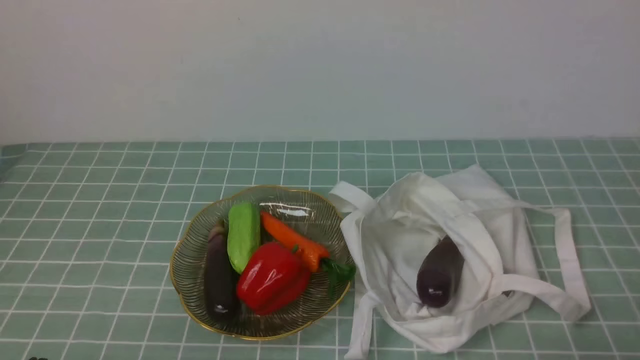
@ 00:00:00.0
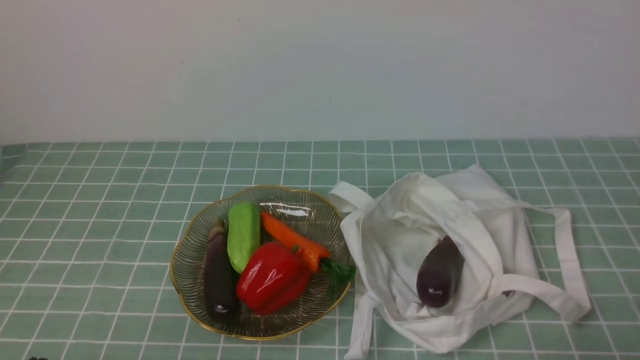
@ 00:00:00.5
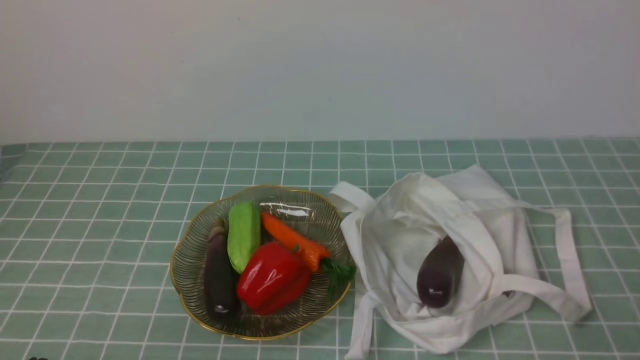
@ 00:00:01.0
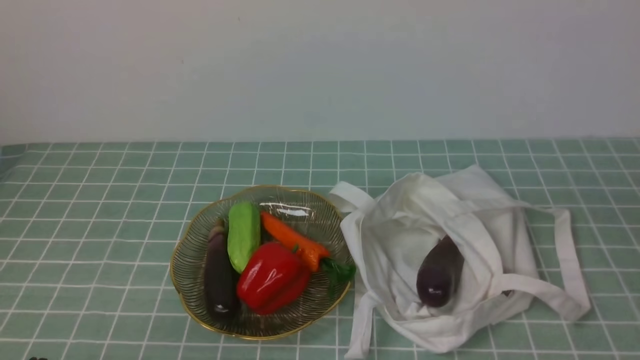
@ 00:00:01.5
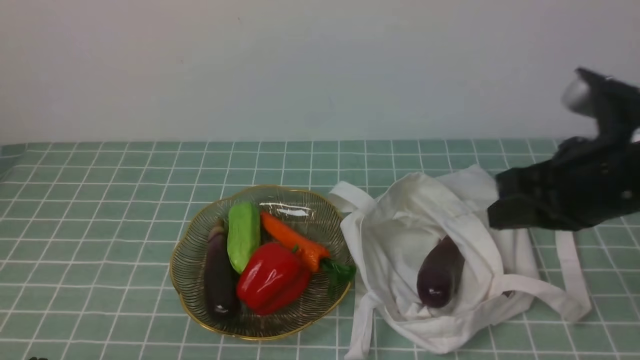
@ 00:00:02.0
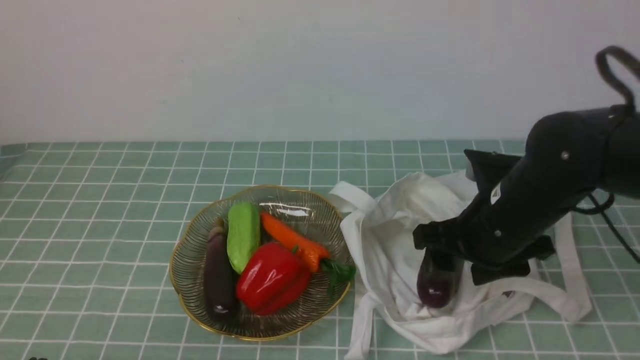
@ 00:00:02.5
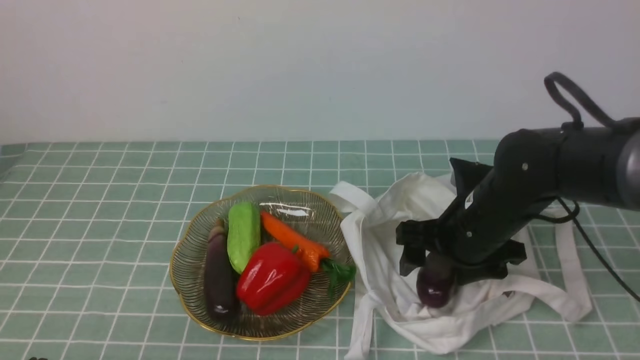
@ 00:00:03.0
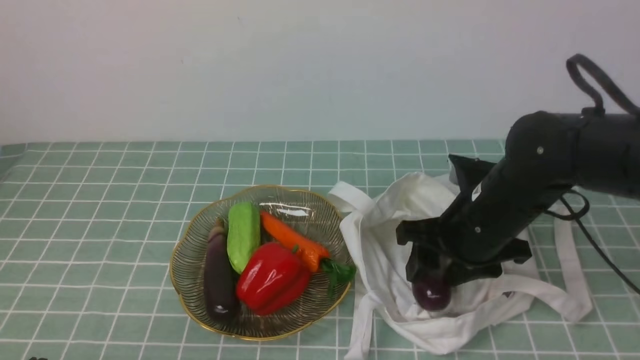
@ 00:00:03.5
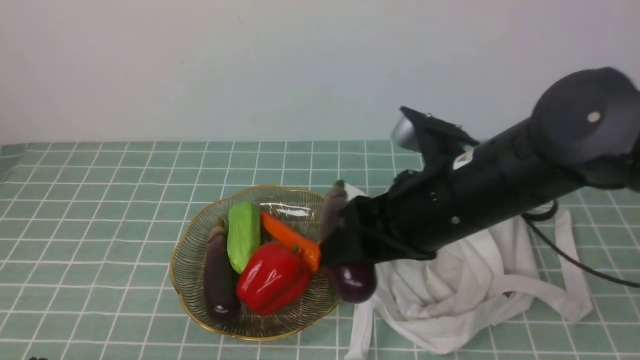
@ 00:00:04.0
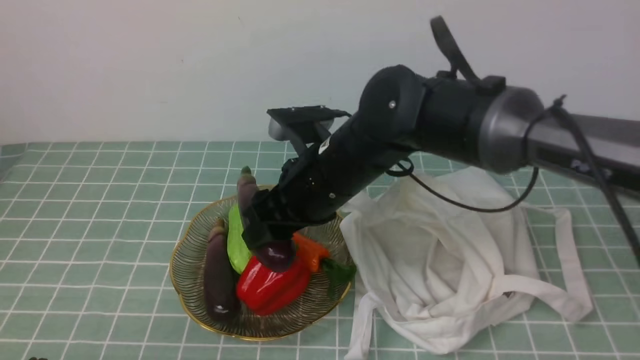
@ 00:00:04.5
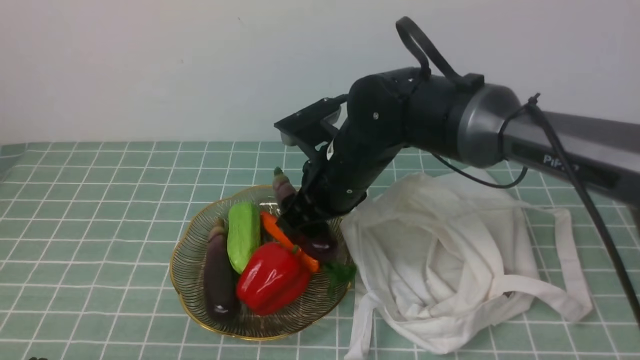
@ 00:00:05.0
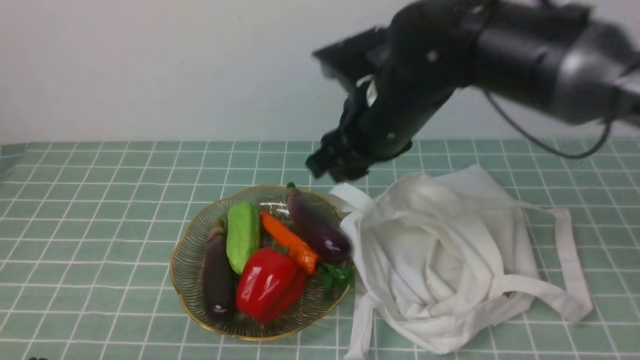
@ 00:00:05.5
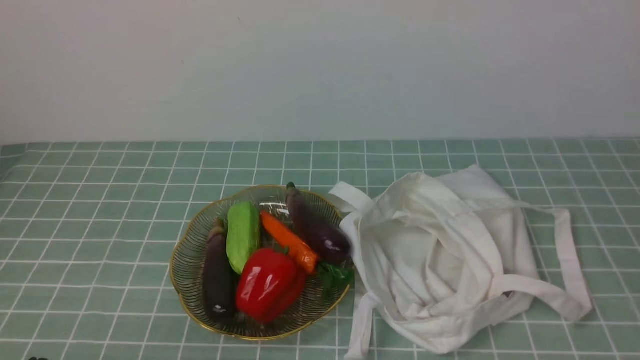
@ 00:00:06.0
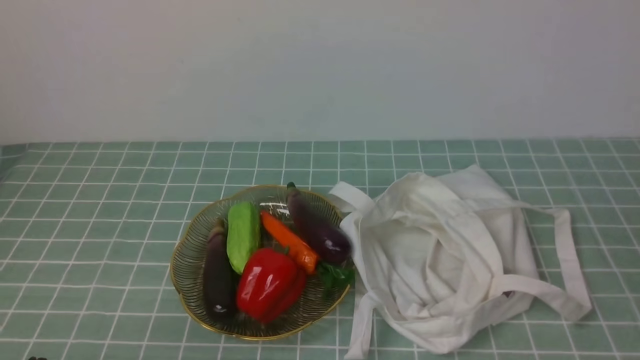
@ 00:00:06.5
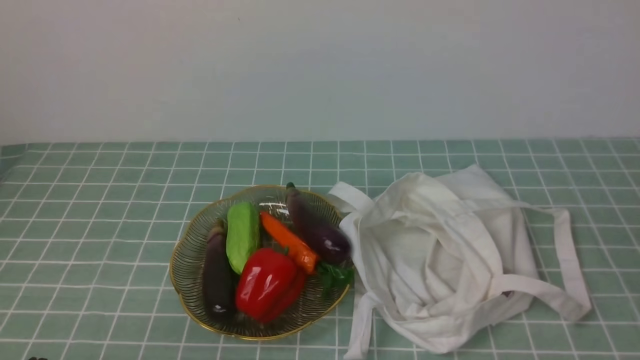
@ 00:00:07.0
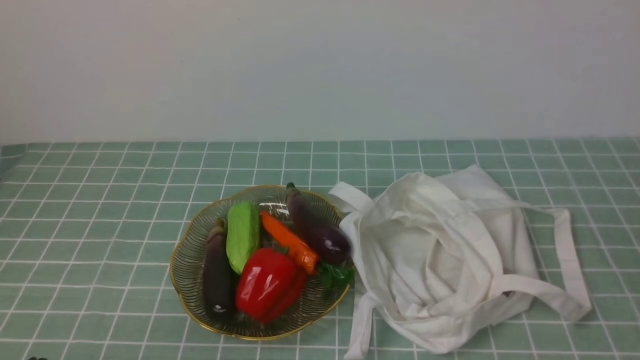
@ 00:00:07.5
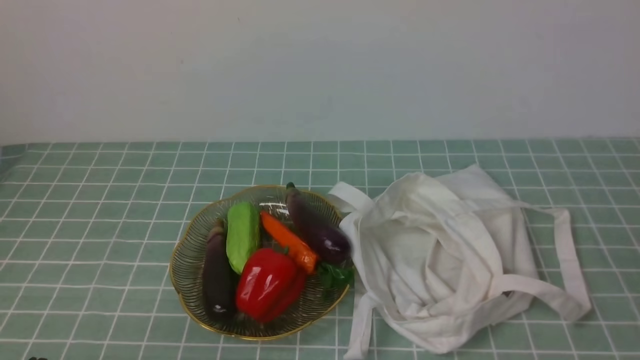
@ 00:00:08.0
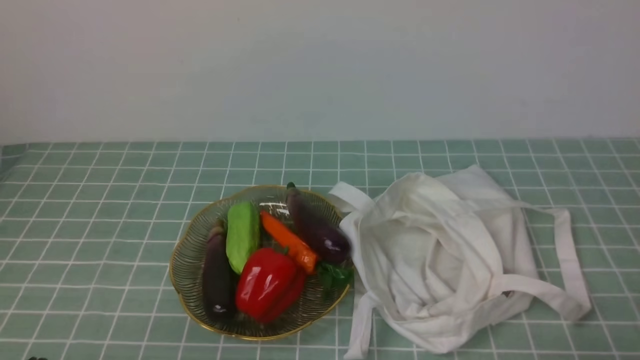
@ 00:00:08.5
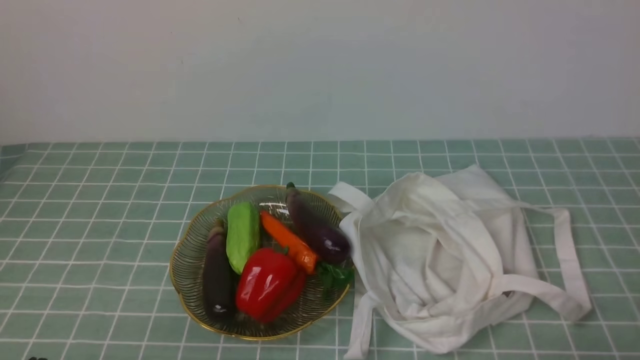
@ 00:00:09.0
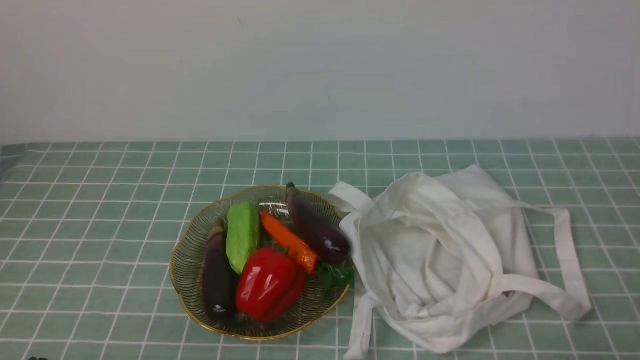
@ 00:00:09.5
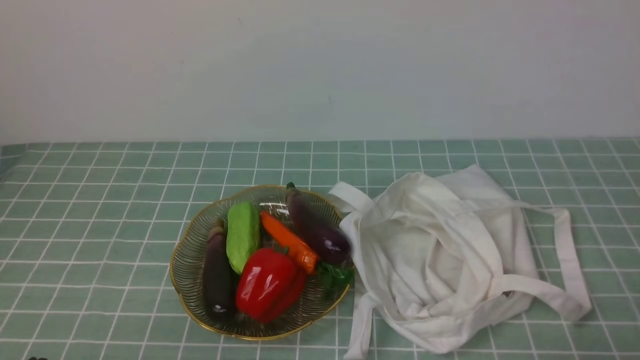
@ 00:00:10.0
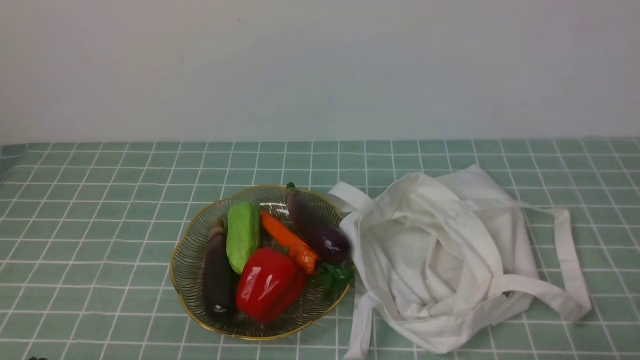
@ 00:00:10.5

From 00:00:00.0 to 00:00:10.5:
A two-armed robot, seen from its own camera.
Task of the whole recording: take vegetables from cloth bag on blue coffee tablecloth place on plate.
Step, from 00:00:00.0 to 00:00:03.0: Grasp the eggplant with right gripper.
Step, from 00:00:03.5 to 00:00:05.0: Place the eggplant on the plate with right gripper.
From 00:00:00.0 to 00:00:02.0: The right gripper shifts about 25 cm forward, upward and to the left.
From 00:00:02.0 to 00:00:04.0: The right gripper travels to the left by some 15 cm, and opens.
From 00:00:04.0 to 00:00:06.5: The right gripper is displaced backward and to the right by some 35 cm, and closes up.
From 00:00:08.5 to 00:00:10.5: Neither gripper changes place.

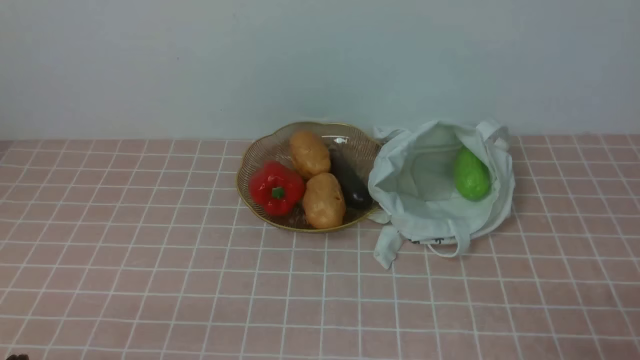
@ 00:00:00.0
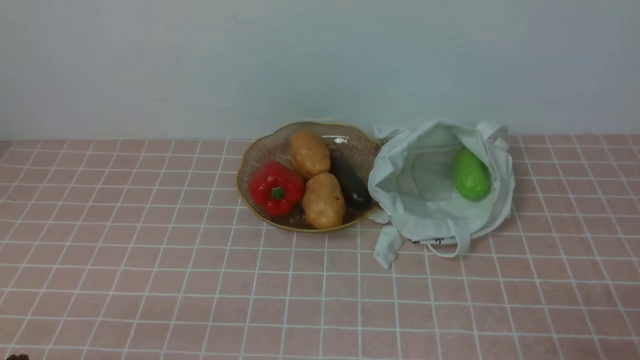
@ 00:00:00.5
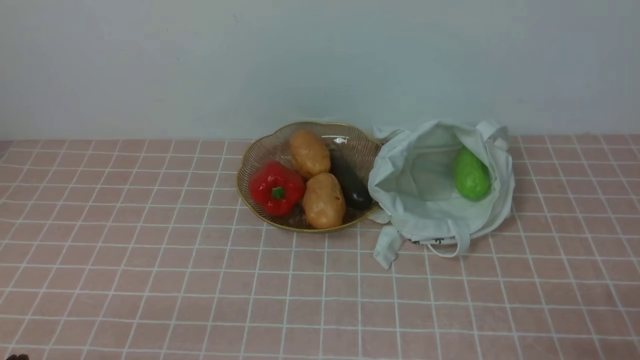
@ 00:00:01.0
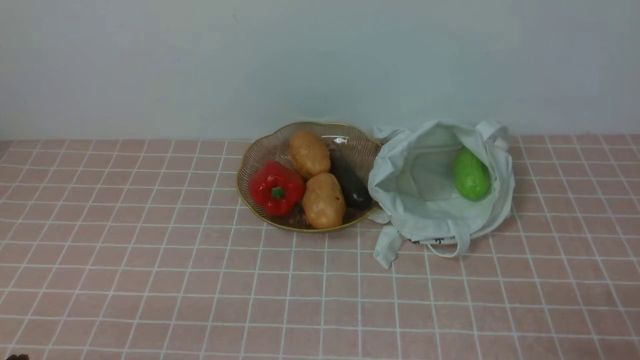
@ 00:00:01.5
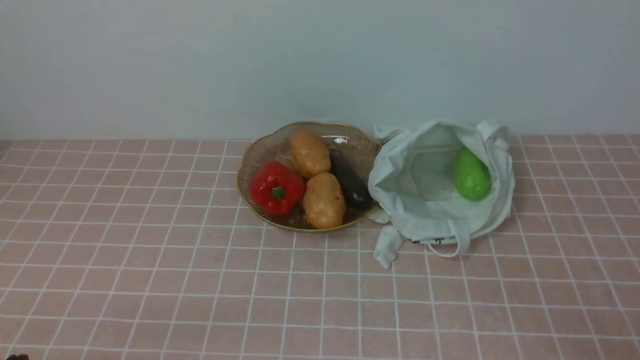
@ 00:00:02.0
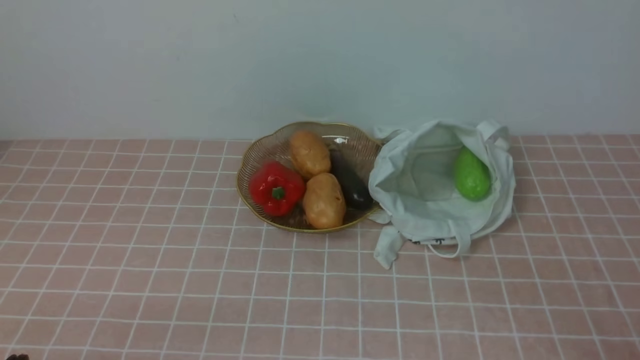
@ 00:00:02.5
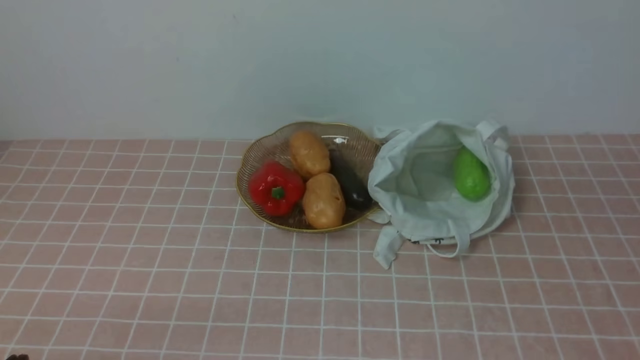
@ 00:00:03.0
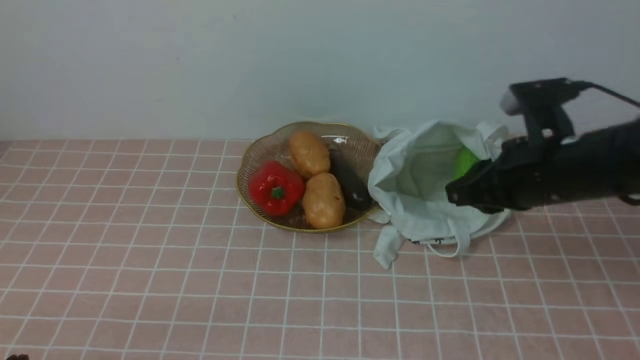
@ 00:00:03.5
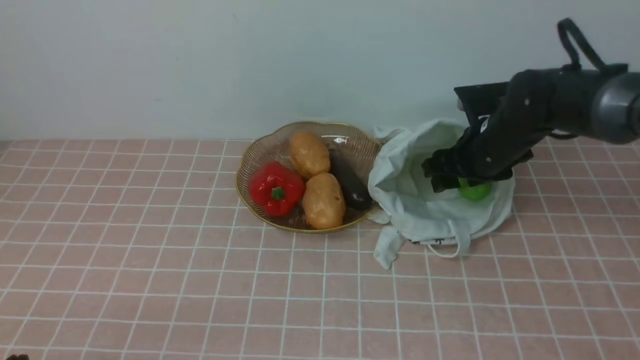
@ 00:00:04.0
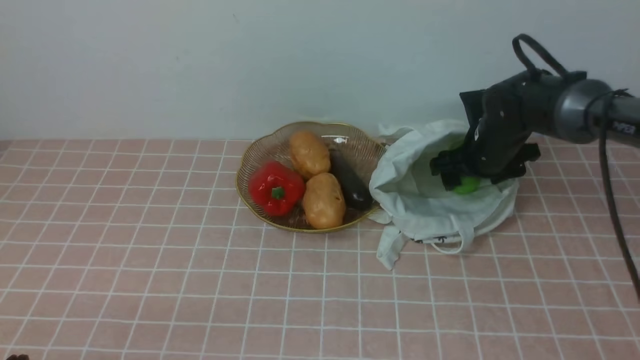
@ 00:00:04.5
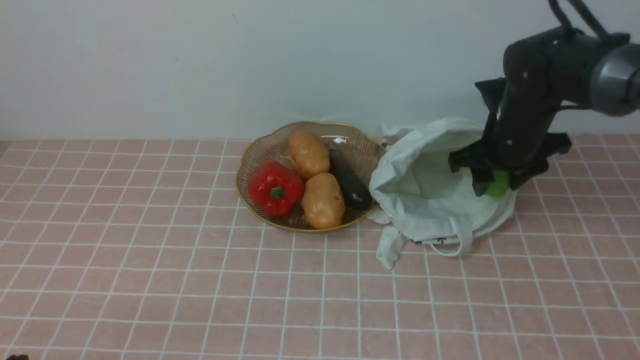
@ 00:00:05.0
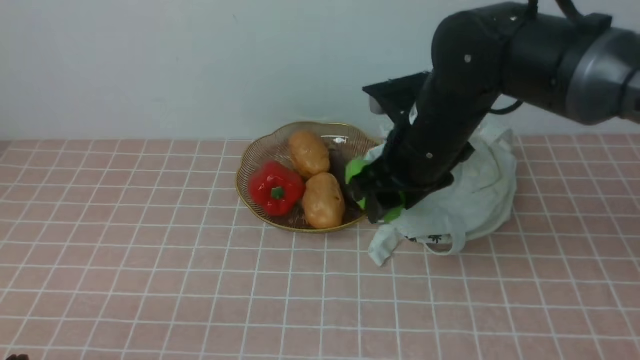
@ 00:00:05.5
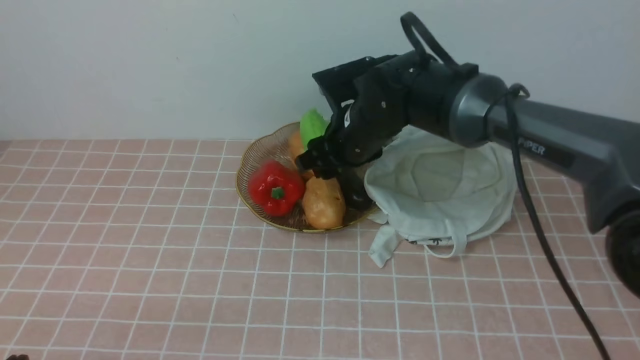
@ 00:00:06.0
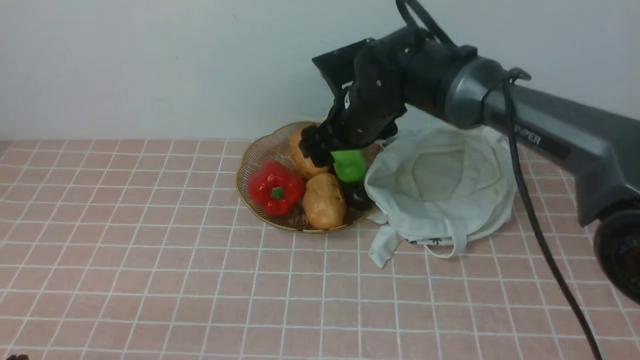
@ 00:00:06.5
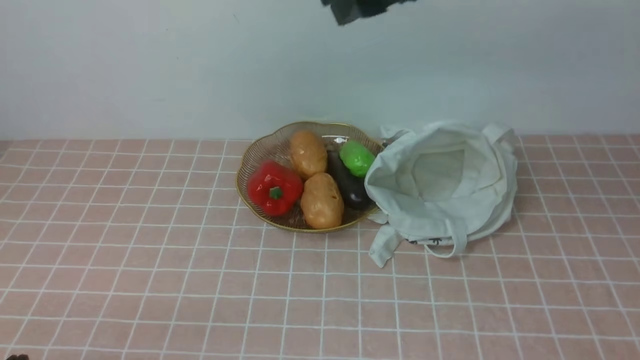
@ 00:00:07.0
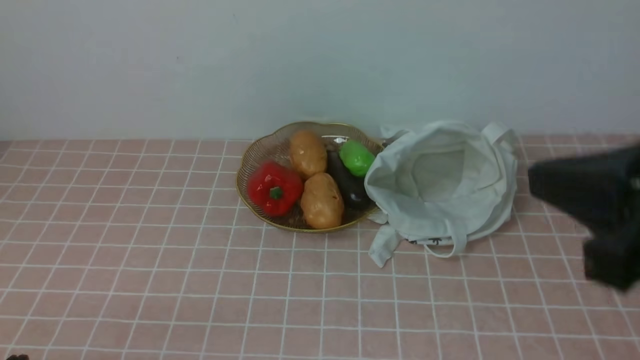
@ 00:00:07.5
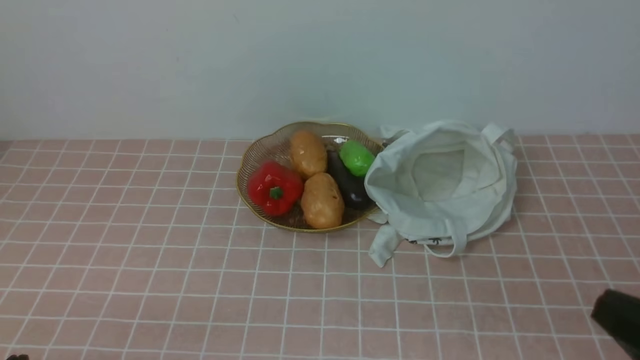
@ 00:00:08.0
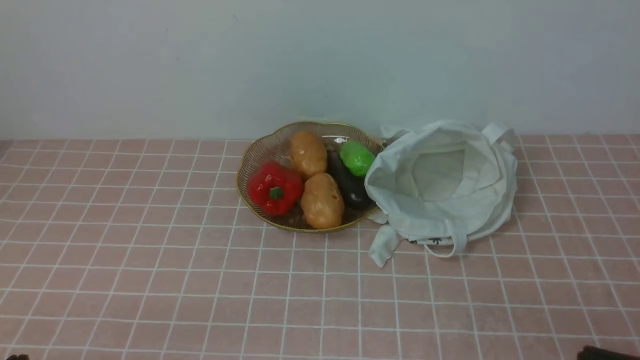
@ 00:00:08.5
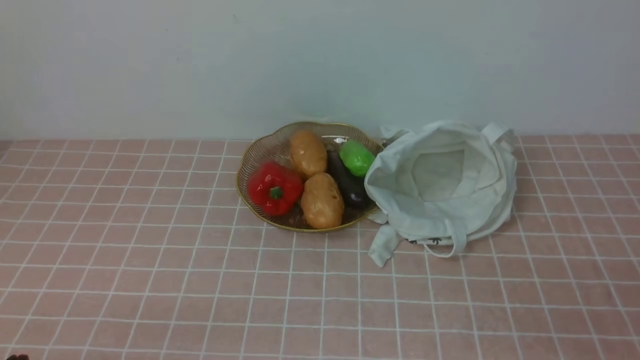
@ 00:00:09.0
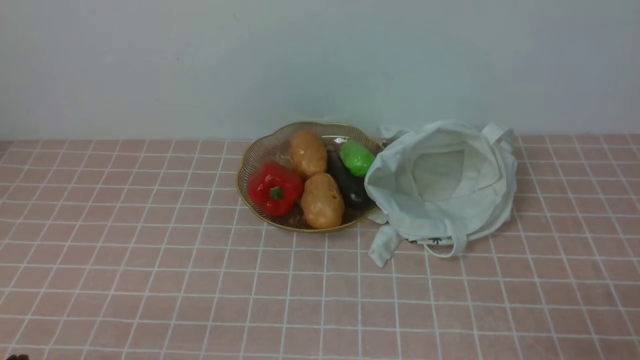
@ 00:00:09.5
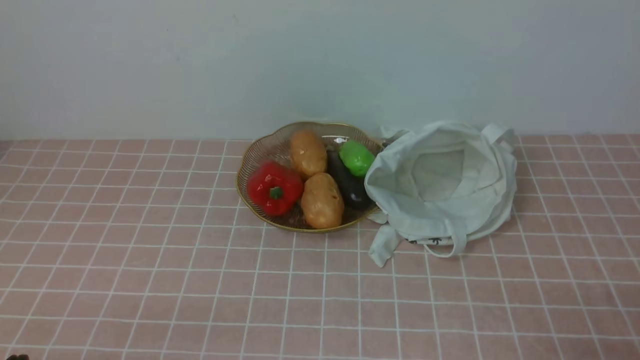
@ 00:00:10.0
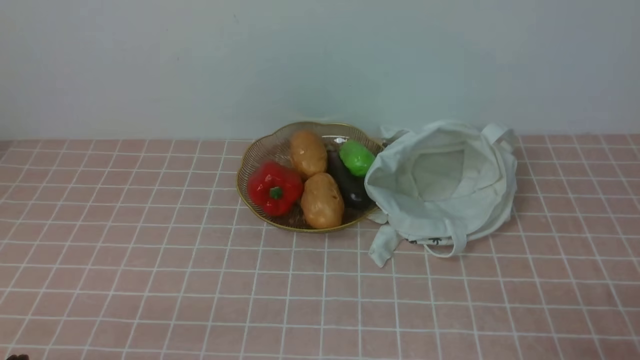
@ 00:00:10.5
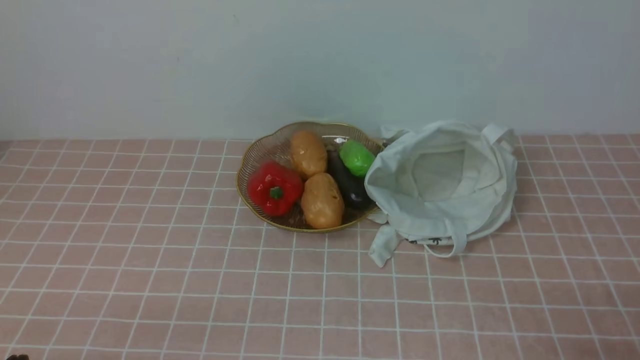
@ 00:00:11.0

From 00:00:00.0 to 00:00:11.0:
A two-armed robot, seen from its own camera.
Task of the whole recording: take vegetables from bag on pink coffee tablecloth place on plate.
Step, from 00:00:00.0 to 00:00:04.5: Grasp the bitter melon with right gripper.
Step, from 00:00:05.0 to 00:00:06.5: Place the bitter melon on the plate with right gripper.
From 00:00:02.0 to 00:00:03.5: The right gripper shifts approximately 20 cm forward and upward.
From 00:00:03.5 to 00:00:05.5: The right gripper is displaced to the left and forward by approximately 15 cm, and opens up.
From 00:00:05.5 to 00:00:07.5: The right gripper moves backward, upward and to the right, about 25 cm, and closes.
From 00:00:07.5 to 00:00:09.0: The right gripper travels downward, backward and to the right by approximately 25 cm.
